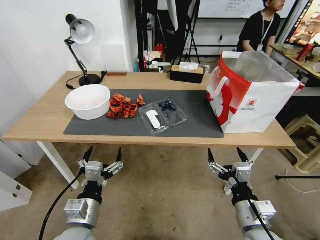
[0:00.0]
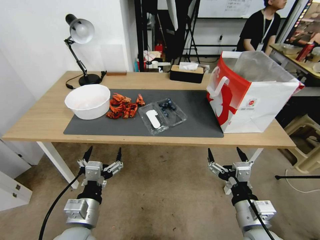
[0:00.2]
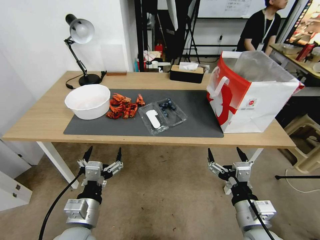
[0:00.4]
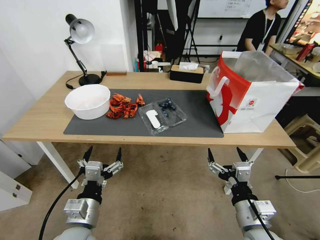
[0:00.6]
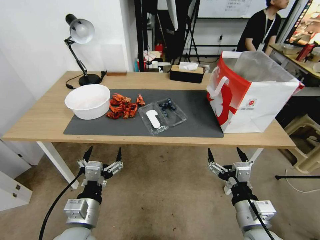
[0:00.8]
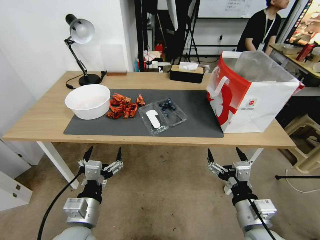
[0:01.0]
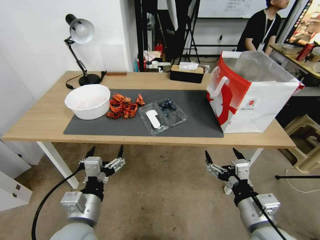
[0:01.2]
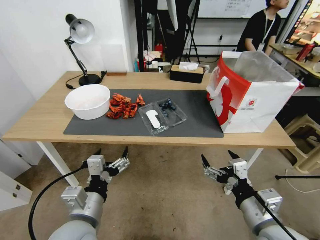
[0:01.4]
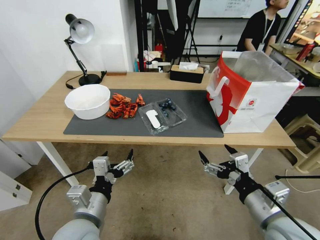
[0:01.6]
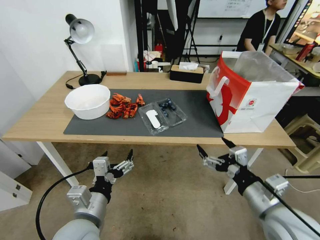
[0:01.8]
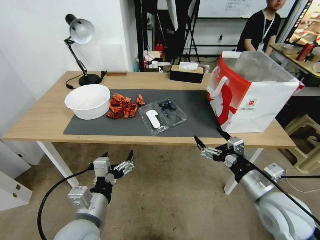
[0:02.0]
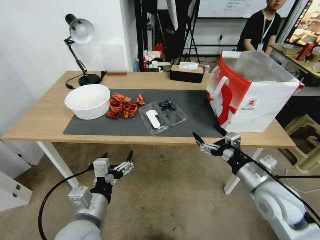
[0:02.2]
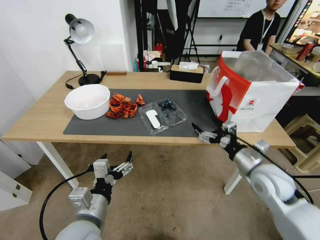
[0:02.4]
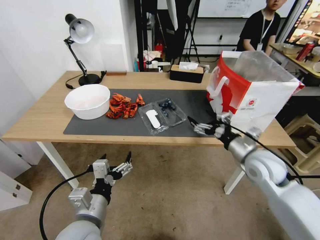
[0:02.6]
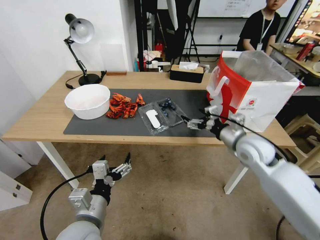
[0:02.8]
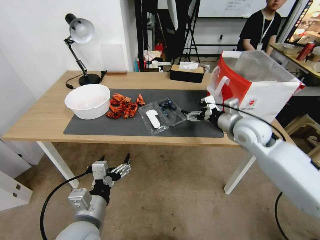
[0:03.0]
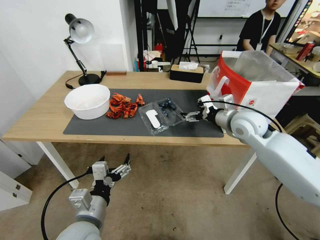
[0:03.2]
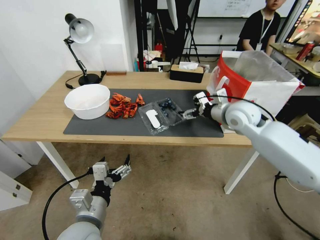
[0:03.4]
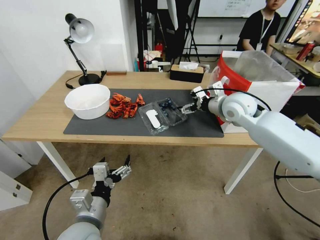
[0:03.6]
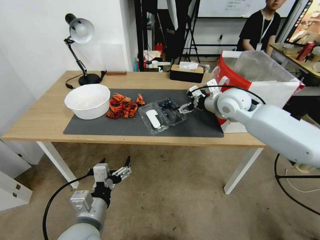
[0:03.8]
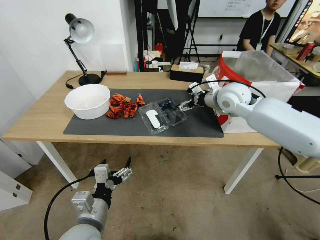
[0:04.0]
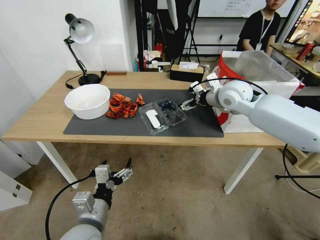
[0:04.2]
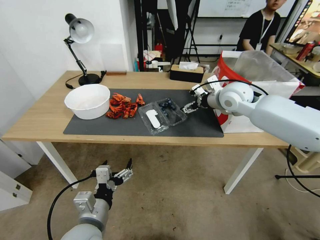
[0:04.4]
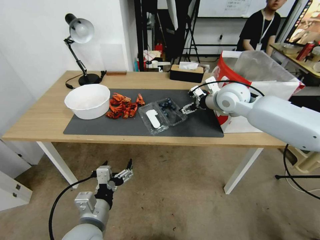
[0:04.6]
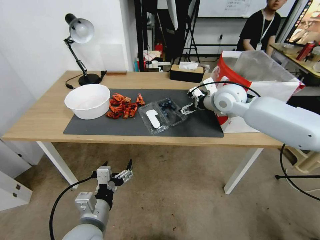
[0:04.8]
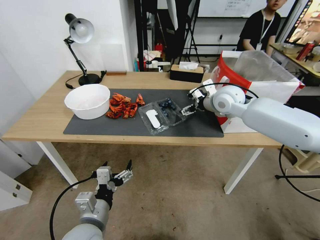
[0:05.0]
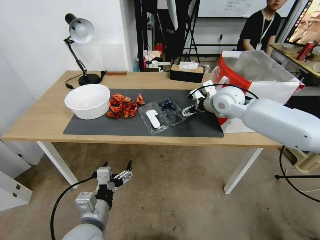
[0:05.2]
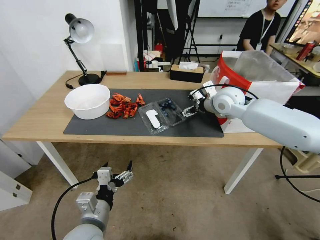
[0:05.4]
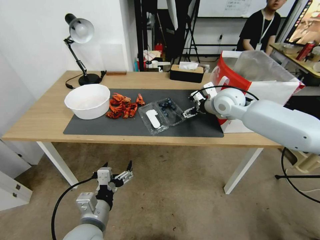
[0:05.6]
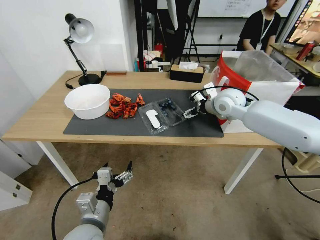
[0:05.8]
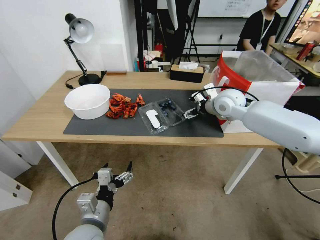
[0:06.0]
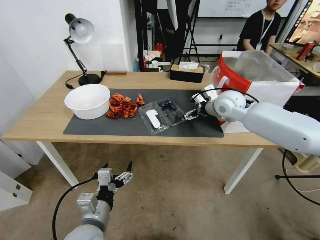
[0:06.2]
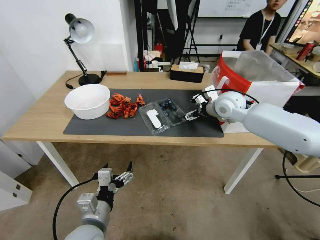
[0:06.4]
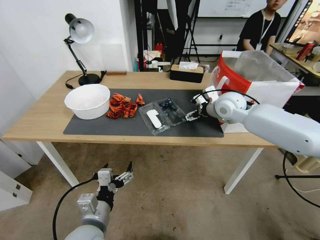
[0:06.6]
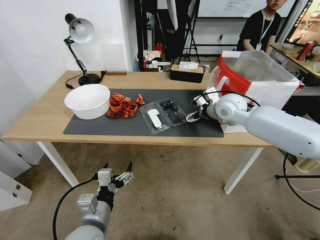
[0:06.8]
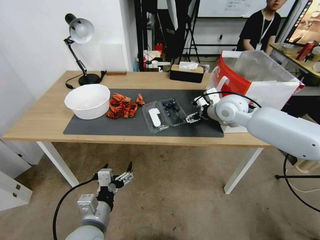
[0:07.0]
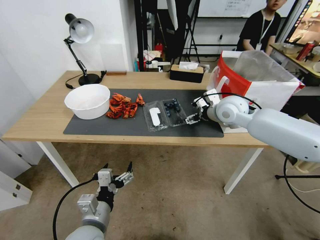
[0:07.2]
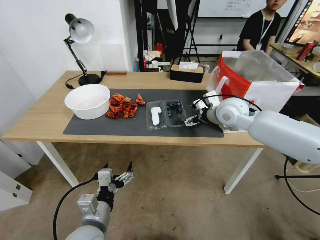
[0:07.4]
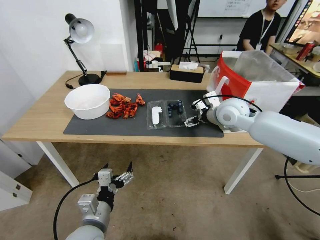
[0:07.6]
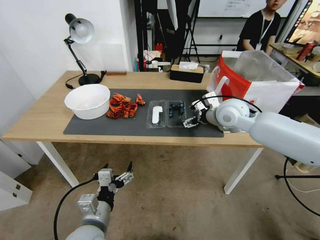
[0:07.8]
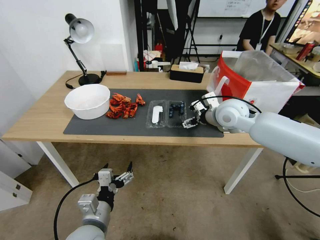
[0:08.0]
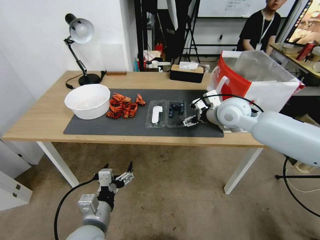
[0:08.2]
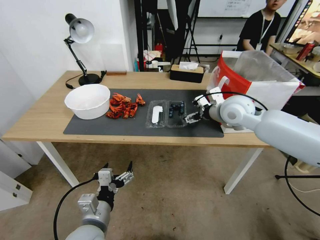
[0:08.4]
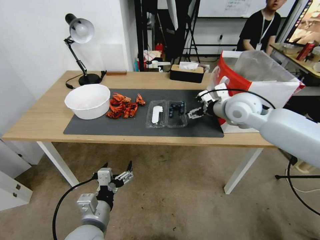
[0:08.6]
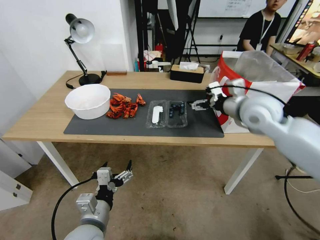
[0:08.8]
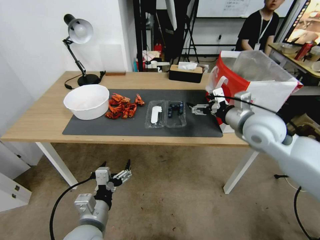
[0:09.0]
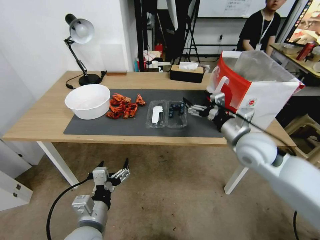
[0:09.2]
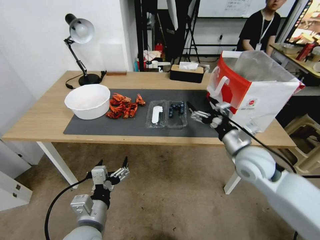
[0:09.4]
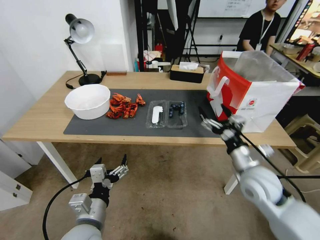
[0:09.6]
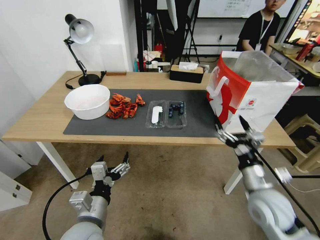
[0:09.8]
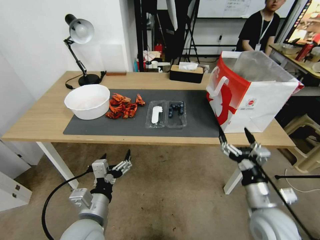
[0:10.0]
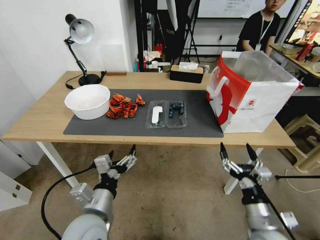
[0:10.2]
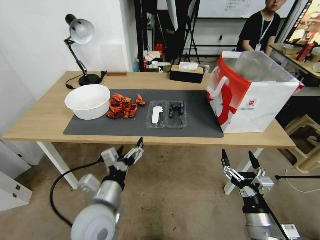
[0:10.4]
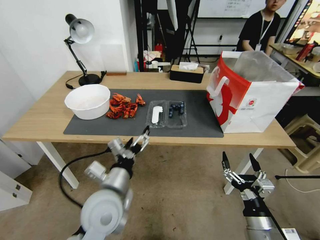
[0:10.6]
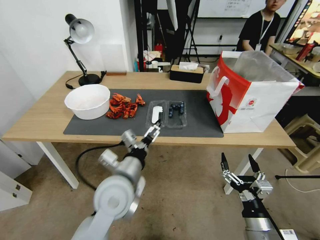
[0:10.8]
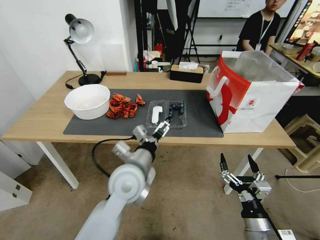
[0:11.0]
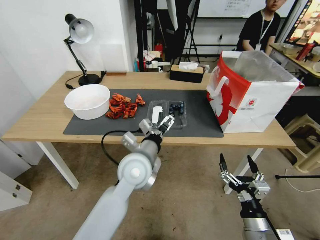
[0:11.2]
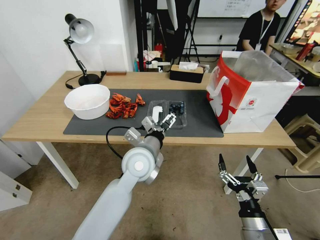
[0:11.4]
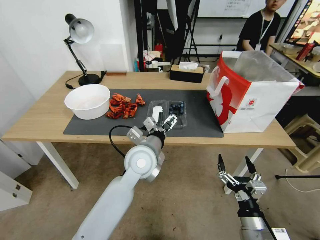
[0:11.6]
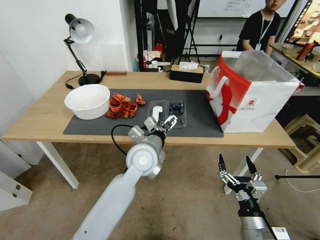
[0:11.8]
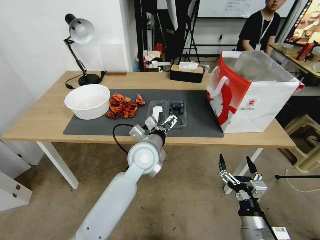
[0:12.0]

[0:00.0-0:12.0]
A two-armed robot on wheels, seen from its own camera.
Task of the whole recording: Close the takeout container lid, then place the container into the takeout bag.
0:01.6 to 0:03.0: The right gripper heads forward, covering roughly 25 cm.
0:03.0 to 0:04.4: The right gripper moves forward and upward, roughly 10 cm.
0:04.4 to 0:07.6: The grippers move only a little.
0:07.6 to 0:09.0: The right gripper goes roughly 10 cm backward.
0:09.0 to 0:10.4: The right gripper heads backward and downward, covering about 30 cm, while the left gripper ends up approximately 5 cm from where it was.
0:10.4 to 0:12.0: The left gripper moves forward and to the right, about 20 cm.

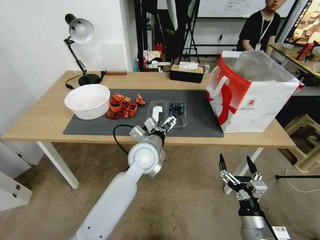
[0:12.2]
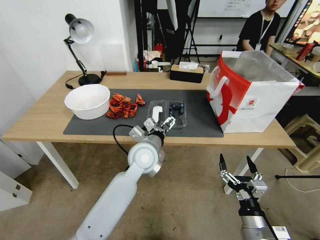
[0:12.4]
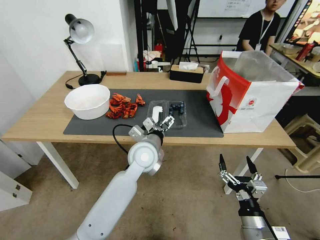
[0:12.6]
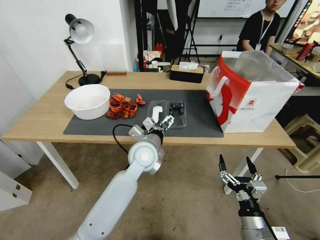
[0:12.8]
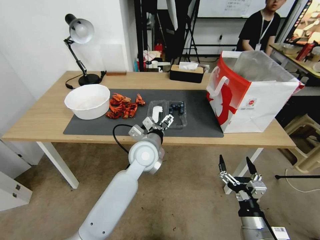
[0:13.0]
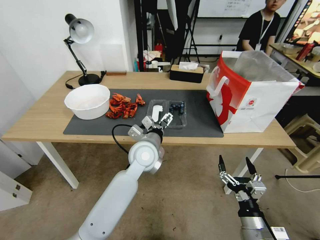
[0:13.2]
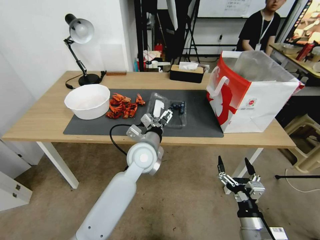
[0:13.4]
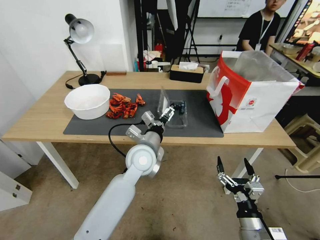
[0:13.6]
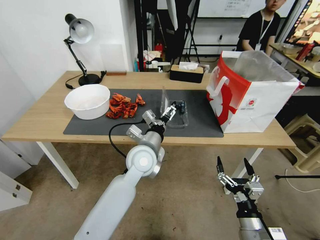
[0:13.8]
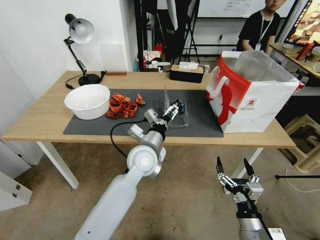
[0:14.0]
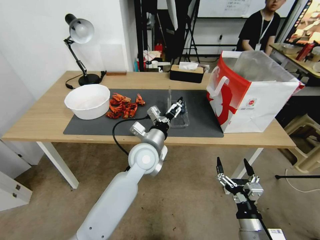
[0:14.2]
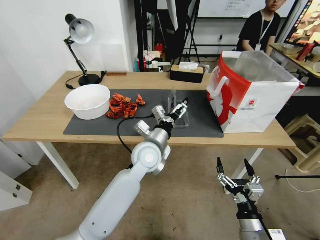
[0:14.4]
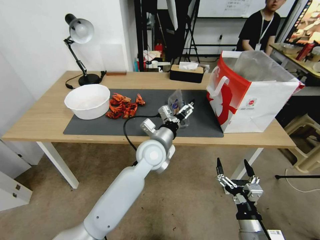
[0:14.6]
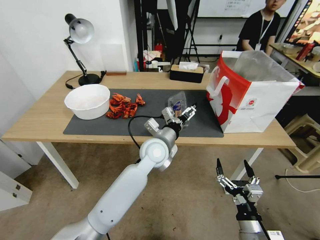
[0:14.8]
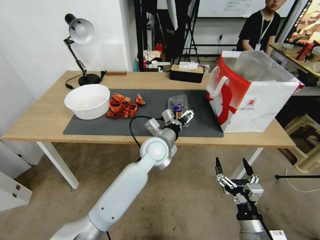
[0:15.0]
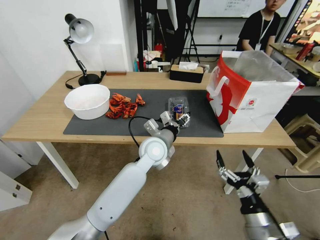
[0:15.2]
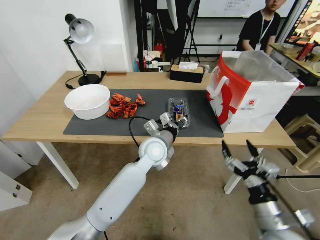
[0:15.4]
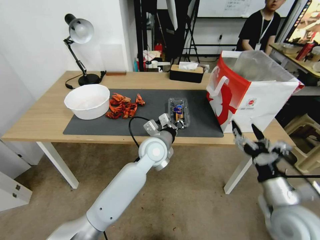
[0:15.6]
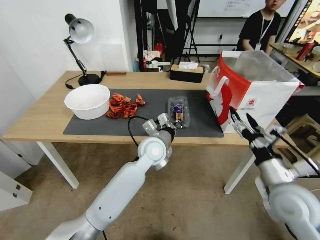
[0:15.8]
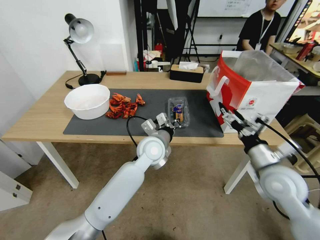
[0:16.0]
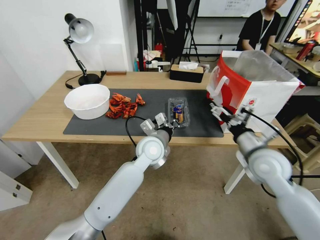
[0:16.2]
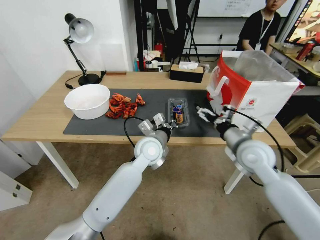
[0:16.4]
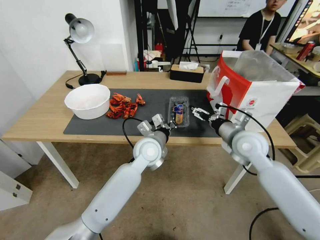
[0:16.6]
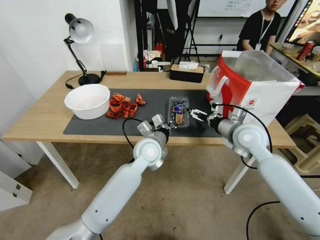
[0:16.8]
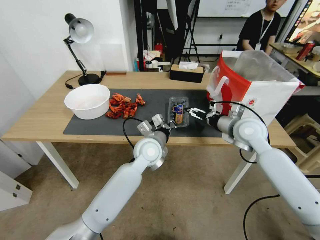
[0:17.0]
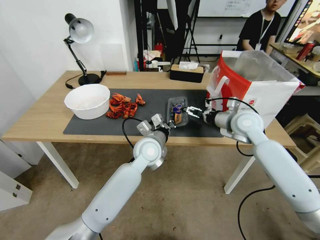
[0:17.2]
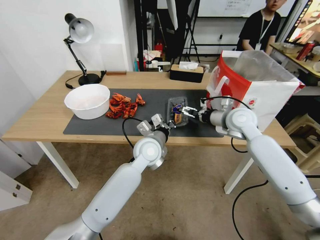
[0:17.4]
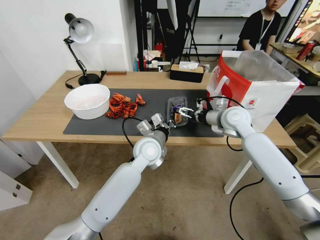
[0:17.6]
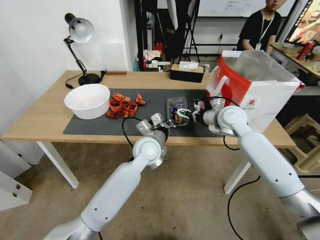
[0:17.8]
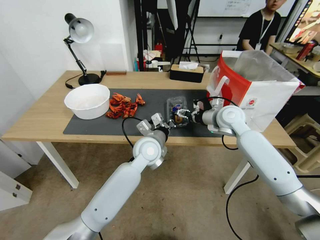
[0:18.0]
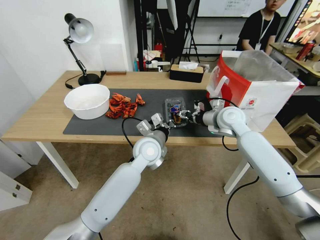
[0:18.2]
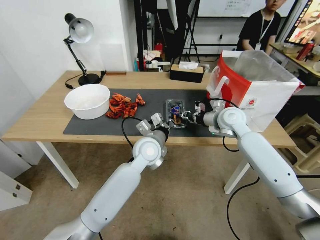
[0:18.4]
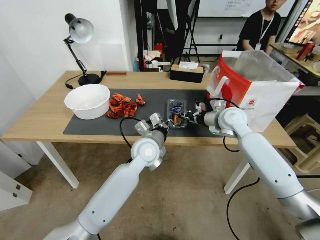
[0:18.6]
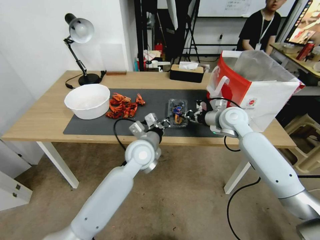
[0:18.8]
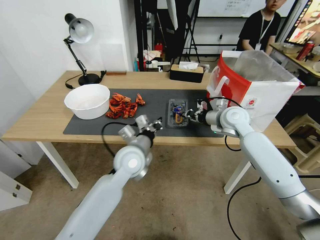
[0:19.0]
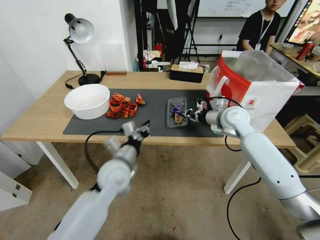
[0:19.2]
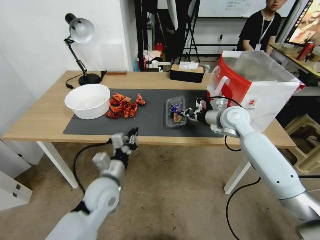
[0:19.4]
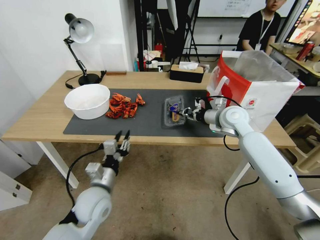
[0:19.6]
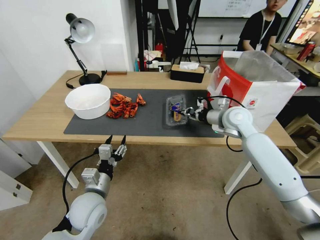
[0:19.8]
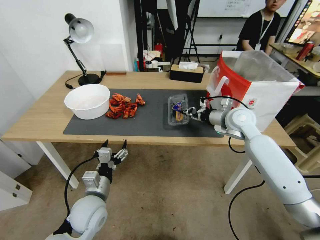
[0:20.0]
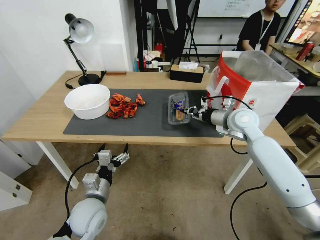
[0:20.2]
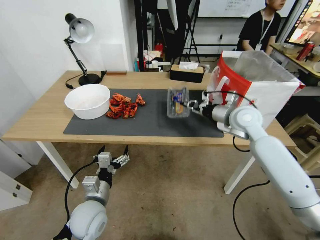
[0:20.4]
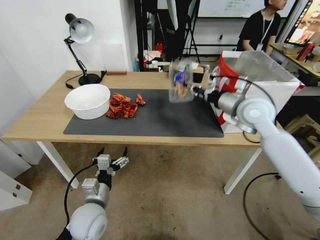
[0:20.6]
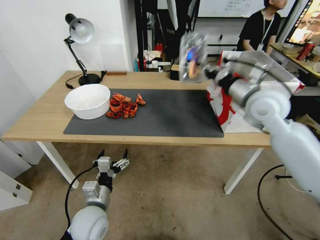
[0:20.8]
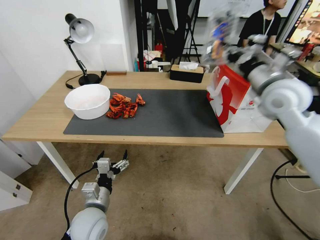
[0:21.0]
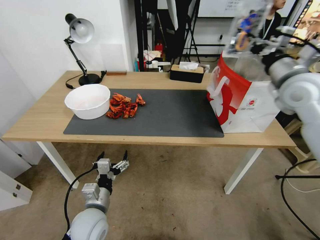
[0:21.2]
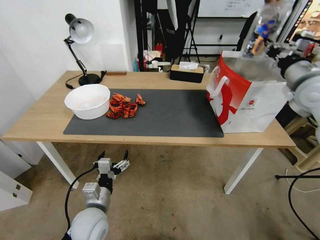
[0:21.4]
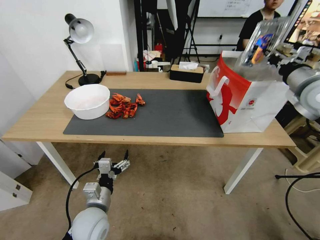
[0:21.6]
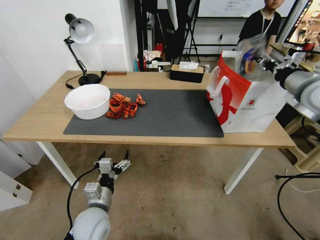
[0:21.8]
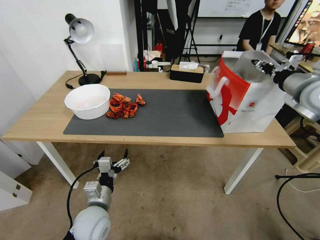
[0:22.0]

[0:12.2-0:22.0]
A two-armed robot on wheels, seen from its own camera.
Task of the whole recording: Close the takeout container lid, then place the container into the takeout bag.
0:12.2 to 0:13.6: The grippers make only small movements.
0:13.6 to 0:15.0: The left gripper shifts by approximately 5 cm.
0:15.0 to 0:16.4: The right gripper travels forward and upward by some 30 cm, while the left gripper closes up.
0:16.4 to 0:17.8: The right gripper travels forward by some 15 cm.
0:17.8 to 0:19.2: The right gripper closes up. Meanwhile the left gripper moves to the left and backward, roughly 15 cm.
0:19.2 to 0:20.6: The left gripper moves backward, downward and to the left, roughly 15 cm, and opens up. The right gripper is displaced upward by approximately 10 cm.
0:20.6 to 0:22.0: The right gripper heads to the right and upward, covering roughly 15 cm, and opens.
